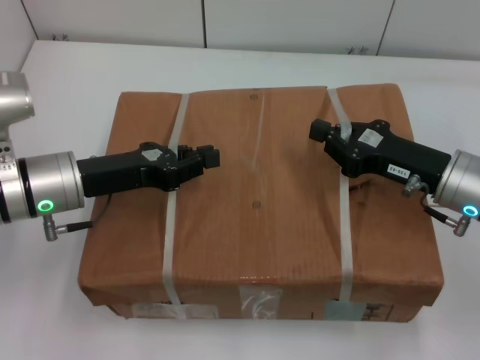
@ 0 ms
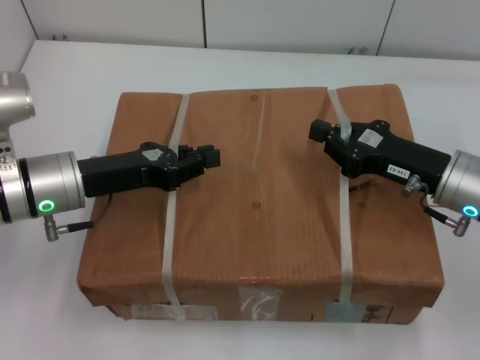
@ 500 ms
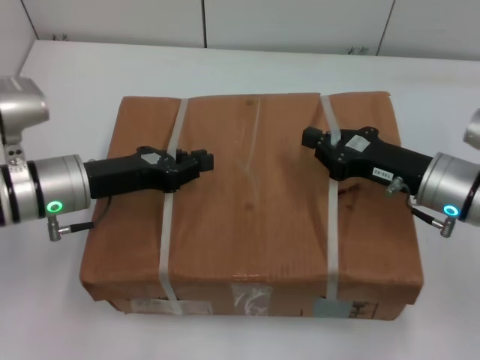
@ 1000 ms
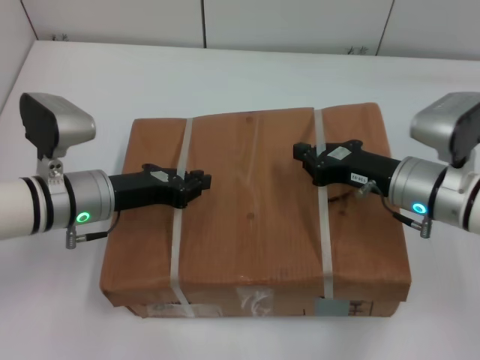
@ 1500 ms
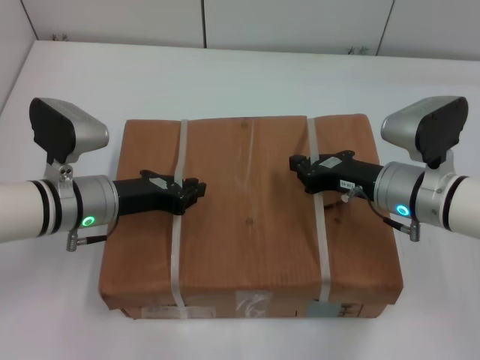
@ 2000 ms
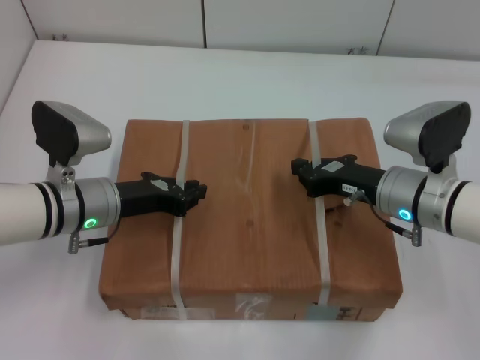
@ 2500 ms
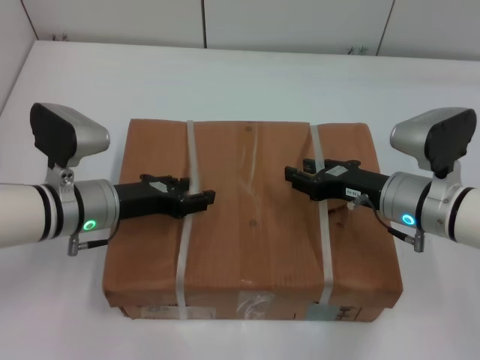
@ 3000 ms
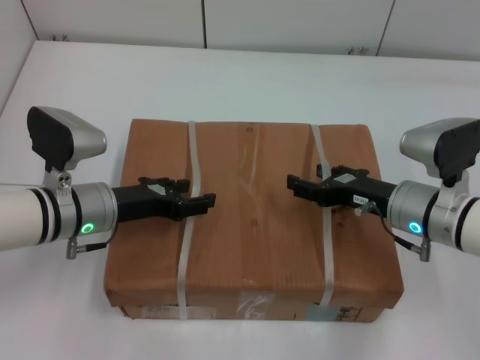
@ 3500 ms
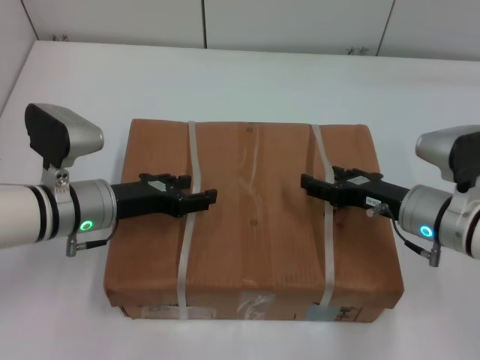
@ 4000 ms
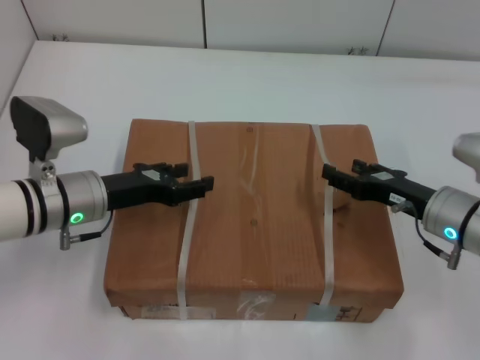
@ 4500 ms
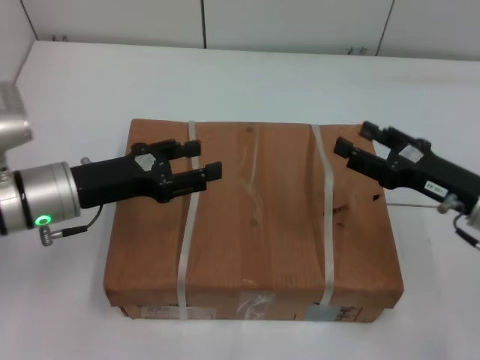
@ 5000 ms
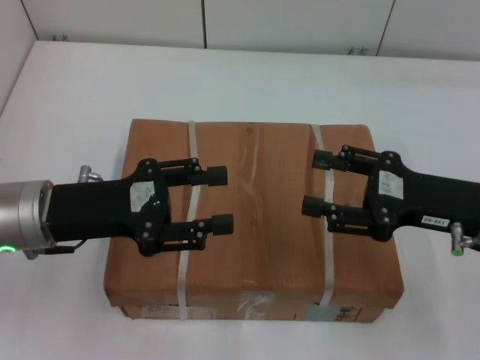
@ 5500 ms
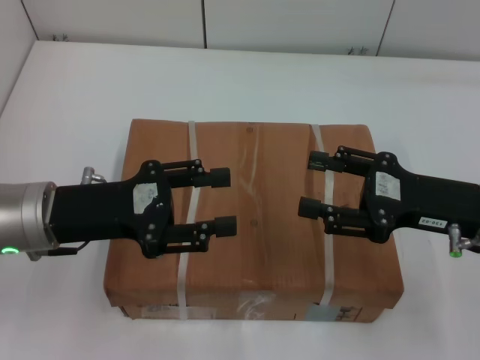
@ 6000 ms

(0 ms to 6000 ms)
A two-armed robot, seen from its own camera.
Task of the whole recording: place the box on the table with both arms.
Step, 0 ms - 2500 ms: Place the box on the table with left gripper.
Step, 0 ms - 2500 ms: Place the box on the table with right gripper.
Step, 3000 ms - 3500 ms: Loosen the box on the table with left gripper.
Step, 3000 ms - 3500 ms: Loosen the box on the table with right gripper.
0 ms - 2000 ms: The right gripper ends up roughly 5 cm from where it was, while the left gripper shifts by roughly 5 cm.
2000 ms - 4000 ms: The right gripper opens up. Meanwhile the left gripper opens up.
4000 ms - 6000 ms: The left gripper goes about 10 cm upward and backward, while the right gripper is displaced upward by approximately 10 cm.
